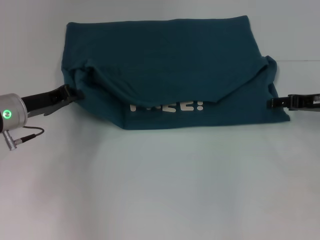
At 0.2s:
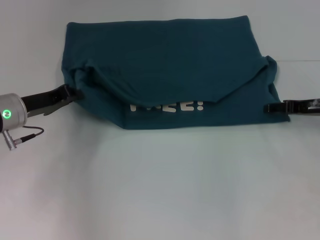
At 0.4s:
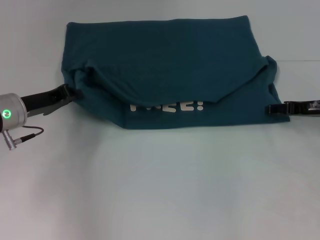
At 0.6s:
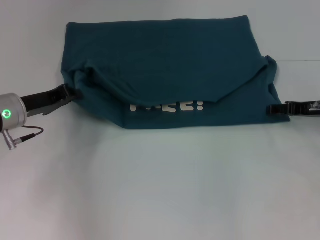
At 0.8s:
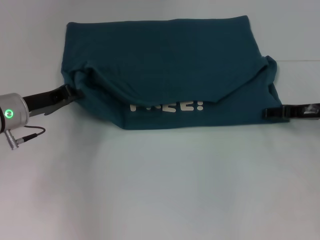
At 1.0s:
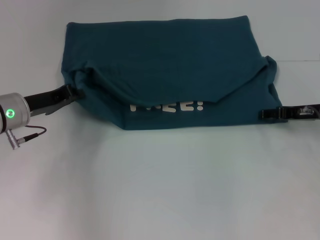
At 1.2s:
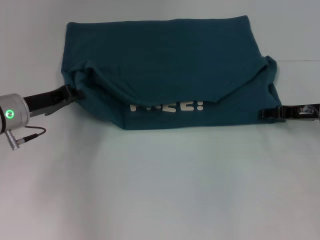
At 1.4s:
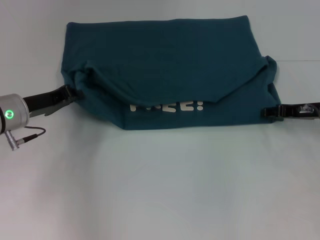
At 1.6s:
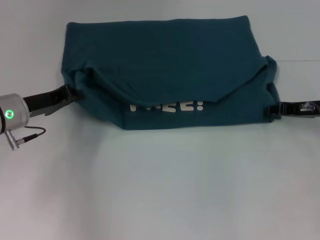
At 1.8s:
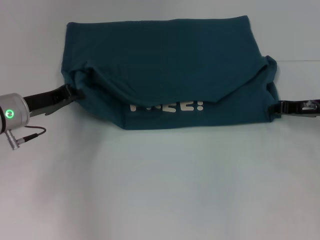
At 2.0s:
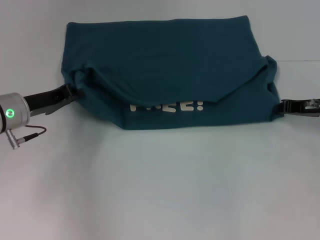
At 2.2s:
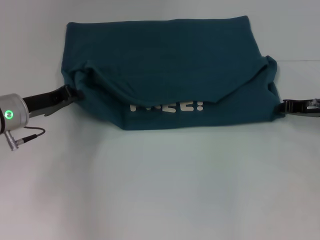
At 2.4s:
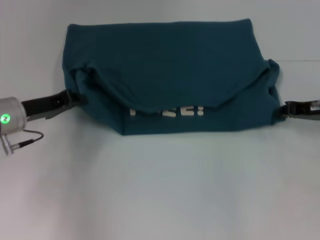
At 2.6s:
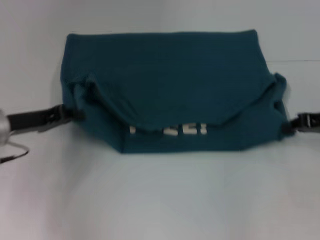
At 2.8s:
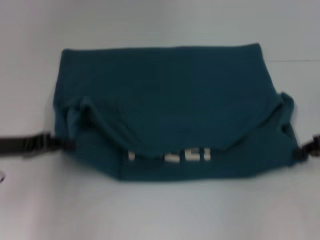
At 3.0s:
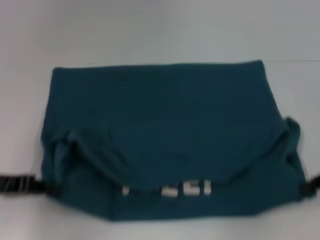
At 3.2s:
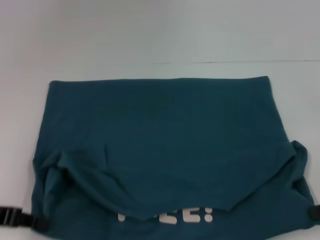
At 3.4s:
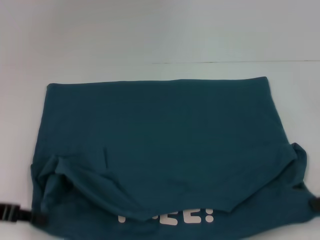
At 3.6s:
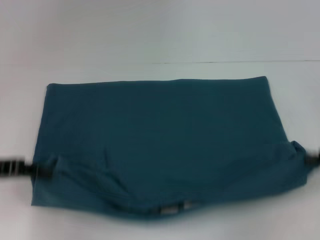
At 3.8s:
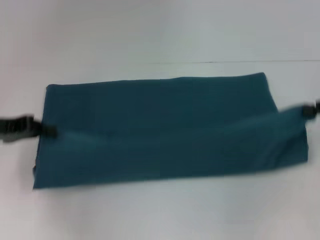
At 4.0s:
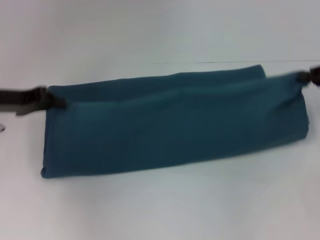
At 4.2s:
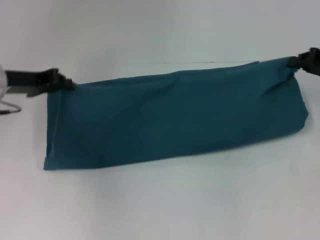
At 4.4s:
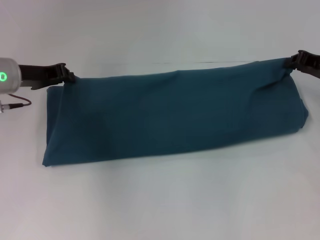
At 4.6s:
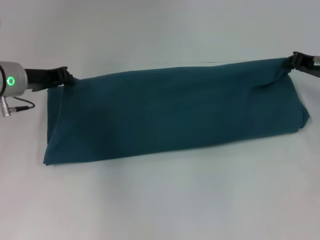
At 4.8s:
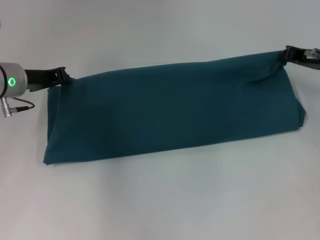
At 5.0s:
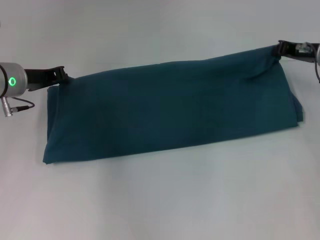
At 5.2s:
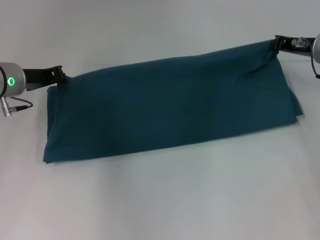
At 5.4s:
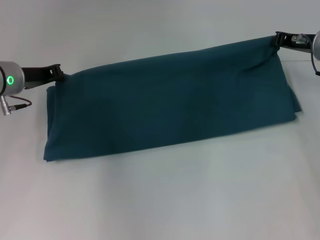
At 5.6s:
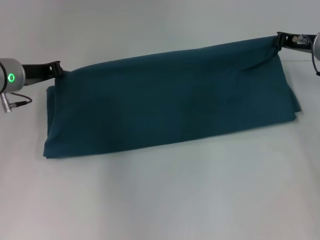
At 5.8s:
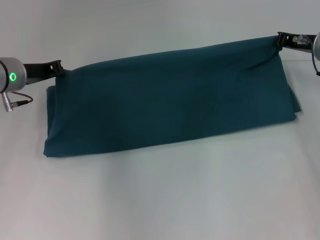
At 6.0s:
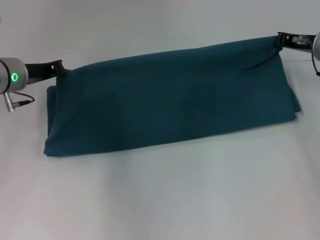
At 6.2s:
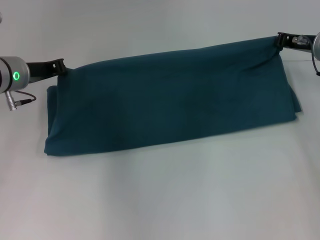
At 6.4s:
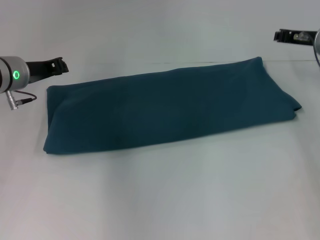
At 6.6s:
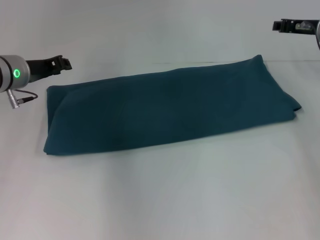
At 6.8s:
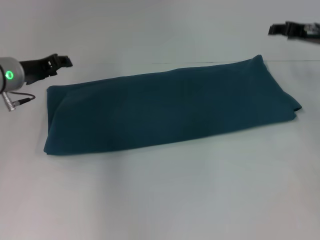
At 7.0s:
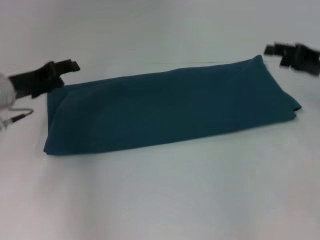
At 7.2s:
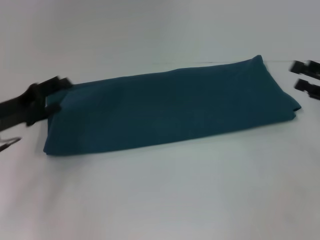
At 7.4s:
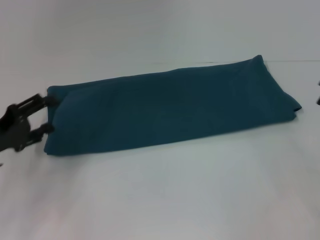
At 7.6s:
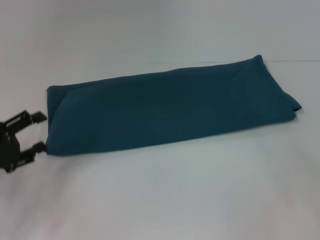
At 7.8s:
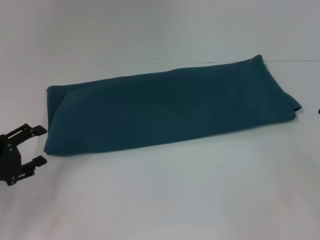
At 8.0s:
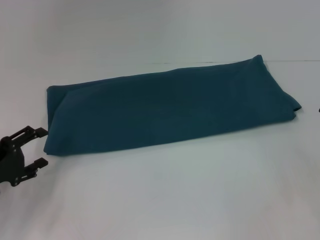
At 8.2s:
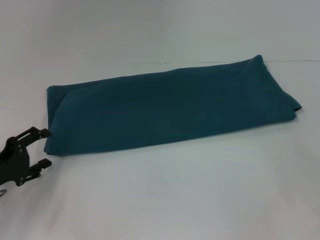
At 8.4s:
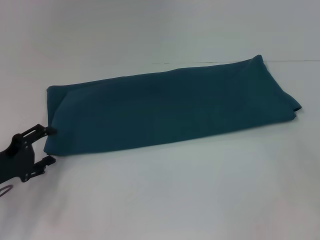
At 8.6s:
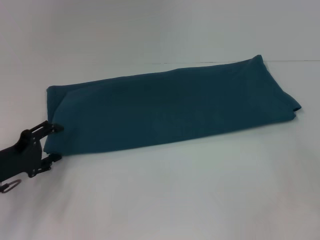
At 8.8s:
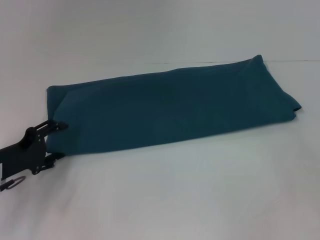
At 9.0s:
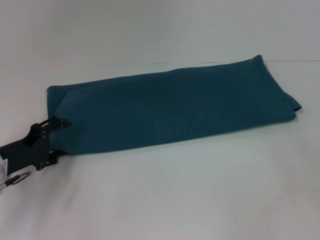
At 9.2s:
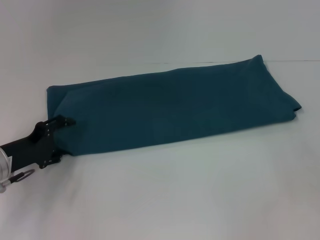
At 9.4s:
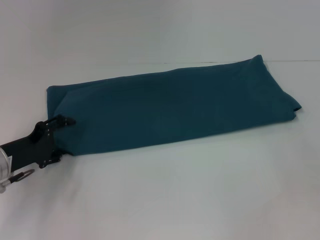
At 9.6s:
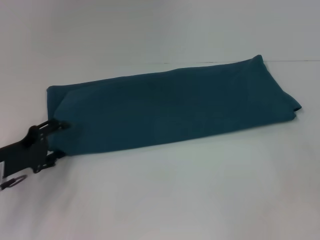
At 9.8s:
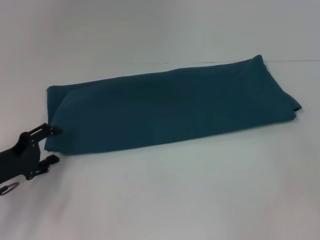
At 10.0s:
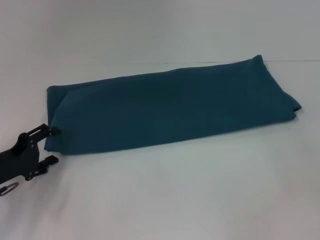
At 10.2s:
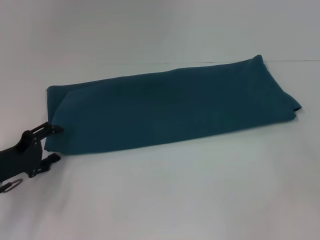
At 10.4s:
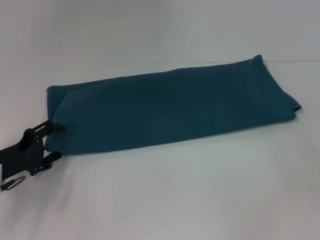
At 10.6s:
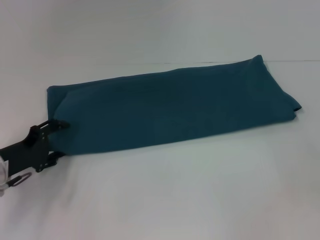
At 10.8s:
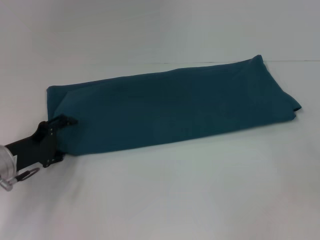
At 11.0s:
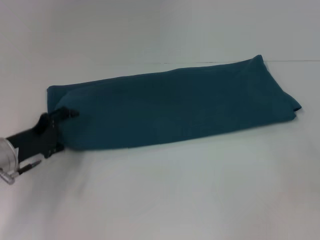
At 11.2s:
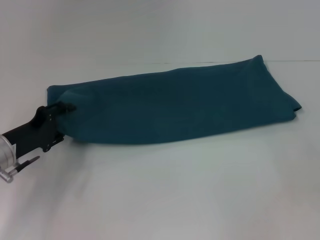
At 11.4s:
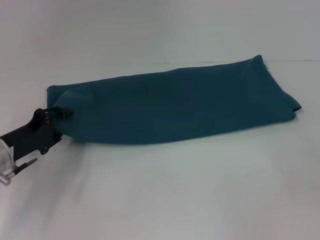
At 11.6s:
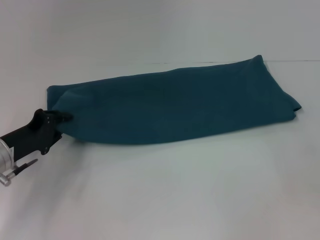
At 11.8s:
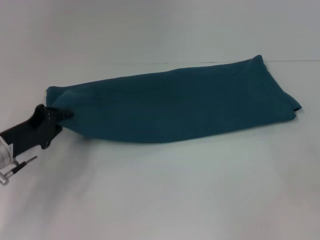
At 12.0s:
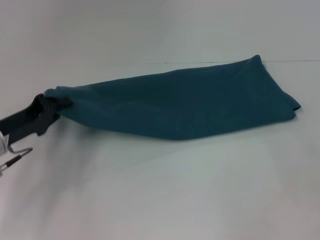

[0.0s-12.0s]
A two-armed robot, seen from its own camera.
Step, 0.0s to 3.2s: Pull the clothes with your left hand.
Step, 0.0s to 3.2s: Pull the clothes with your right hand.
Step, 3.4s to 7.0s: Fold the clothes to the right.
0.0s to 1.6s: The right gripper closes up.
1.6s to 3.0s: The right gripper goes roughly 10 cm backward and to the right, and closes. The left gripper goes some 10 cm backward and to the left.
3.0s to 4.4s: The grippers both shift forward by approximately 15 cm.
4.4s to 6.0s: The right gripper moves some 5 cm.
6.0s to 7.6s: The left gripper moves backward and to the left, about 20 cm, and opens up. Meanwhile the right gripper travels backward and to the right by about 20 cm, and opens up.
7.6s to 9.0s: The left gripper changes place by about 5 cm.
9.0s to 10.4s: The grippers stay close to where they were, moving slightly.
10.4s to 12.0s: The left gripper closes up.

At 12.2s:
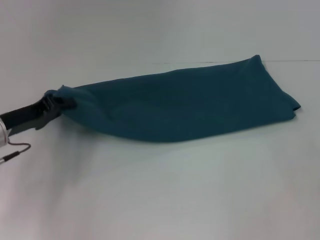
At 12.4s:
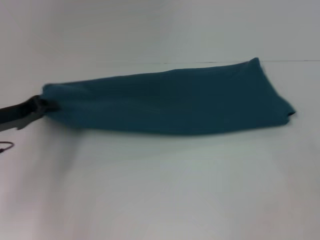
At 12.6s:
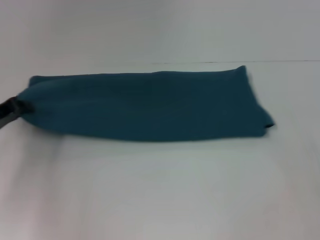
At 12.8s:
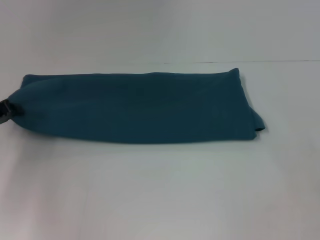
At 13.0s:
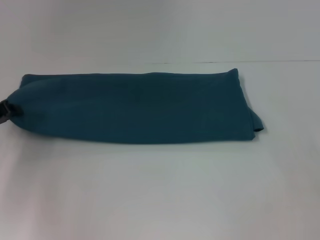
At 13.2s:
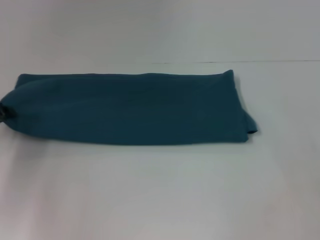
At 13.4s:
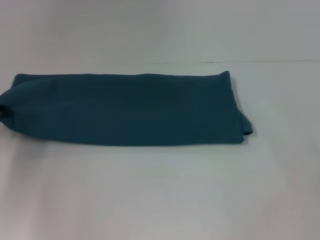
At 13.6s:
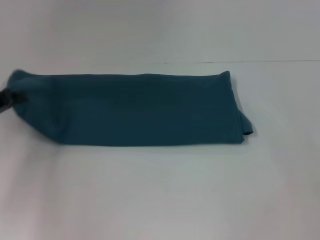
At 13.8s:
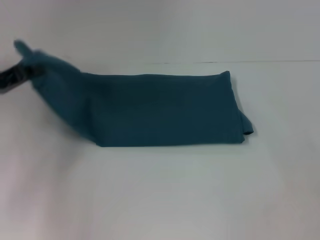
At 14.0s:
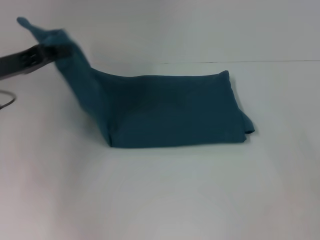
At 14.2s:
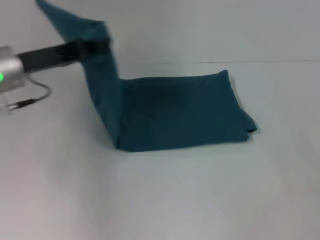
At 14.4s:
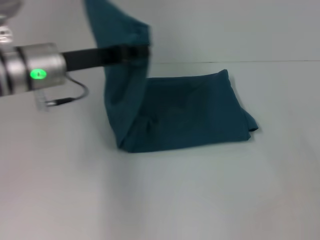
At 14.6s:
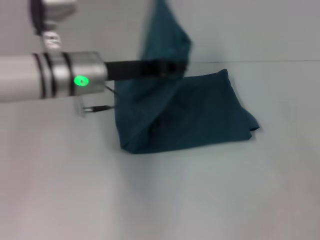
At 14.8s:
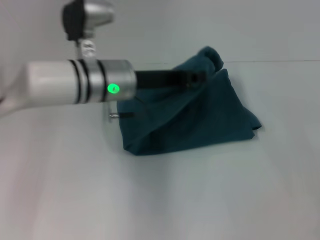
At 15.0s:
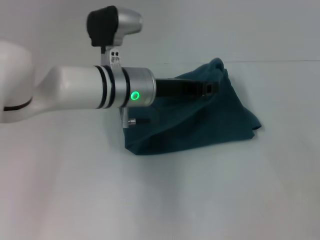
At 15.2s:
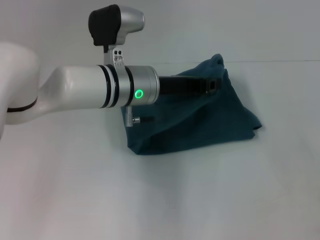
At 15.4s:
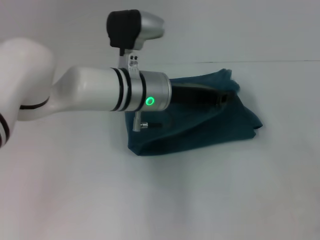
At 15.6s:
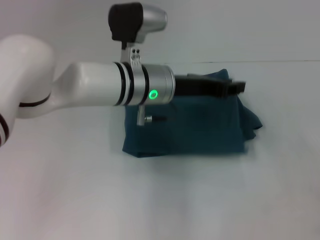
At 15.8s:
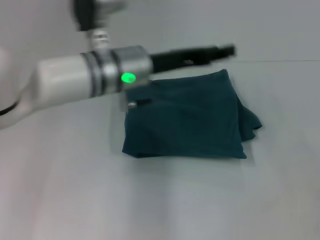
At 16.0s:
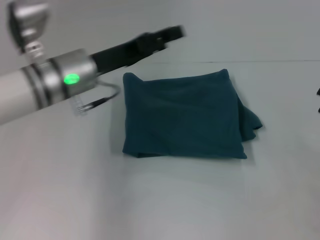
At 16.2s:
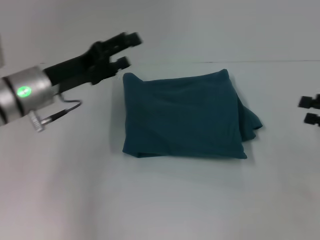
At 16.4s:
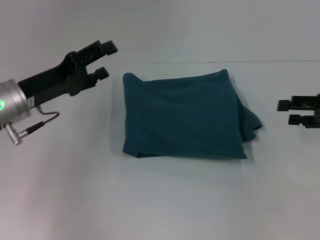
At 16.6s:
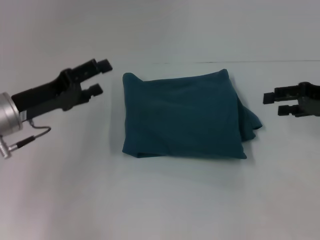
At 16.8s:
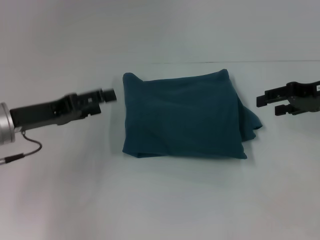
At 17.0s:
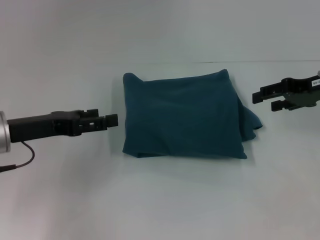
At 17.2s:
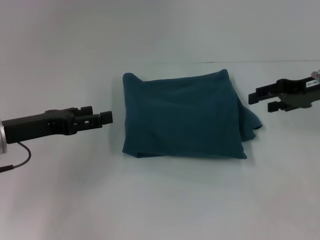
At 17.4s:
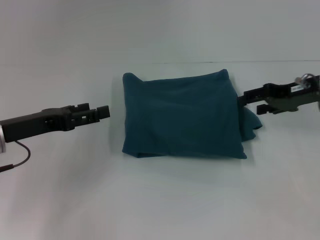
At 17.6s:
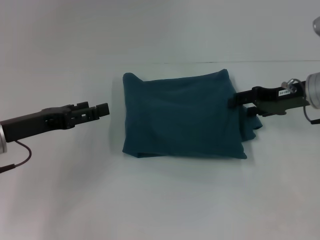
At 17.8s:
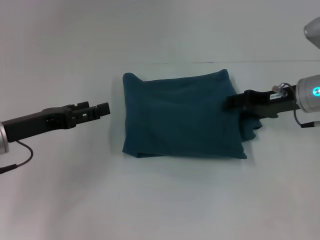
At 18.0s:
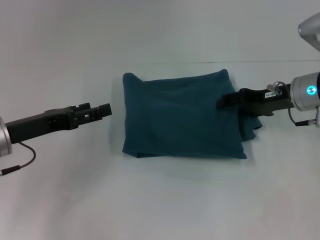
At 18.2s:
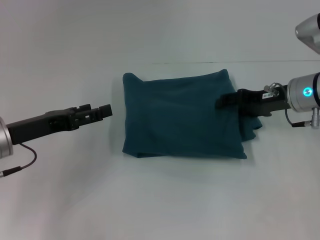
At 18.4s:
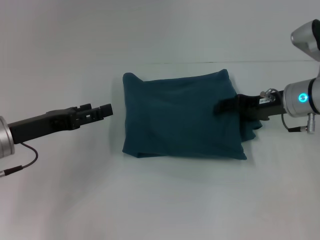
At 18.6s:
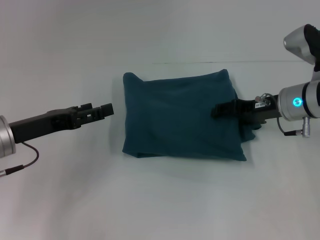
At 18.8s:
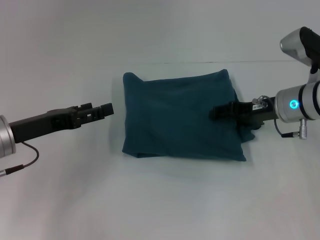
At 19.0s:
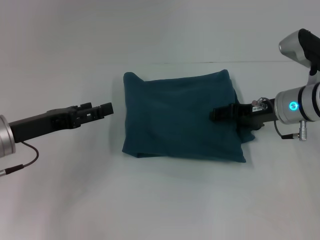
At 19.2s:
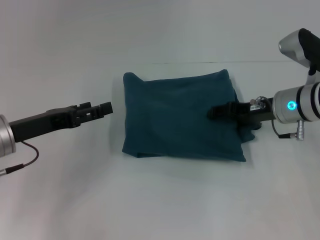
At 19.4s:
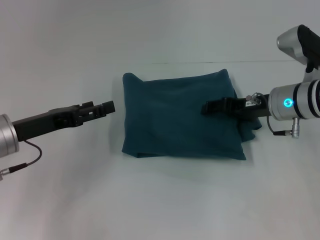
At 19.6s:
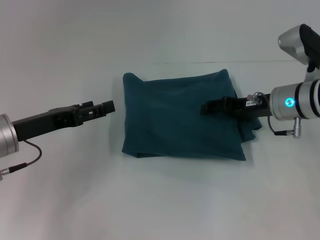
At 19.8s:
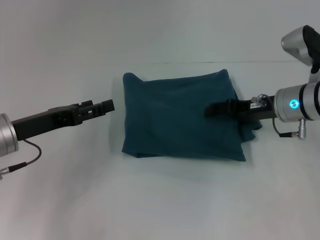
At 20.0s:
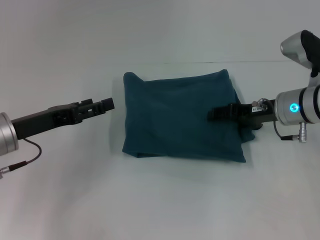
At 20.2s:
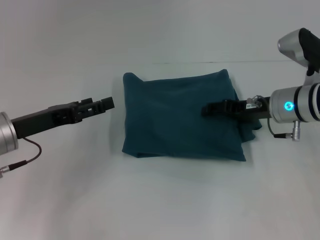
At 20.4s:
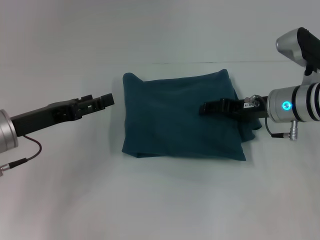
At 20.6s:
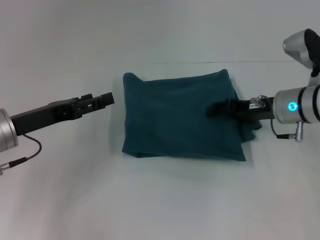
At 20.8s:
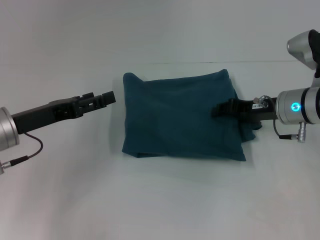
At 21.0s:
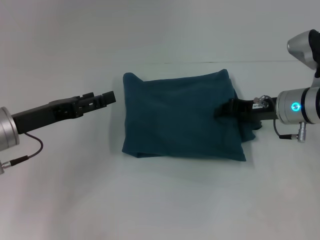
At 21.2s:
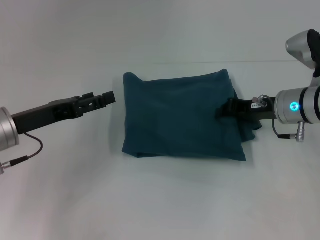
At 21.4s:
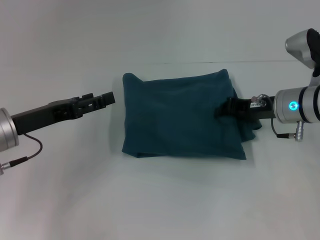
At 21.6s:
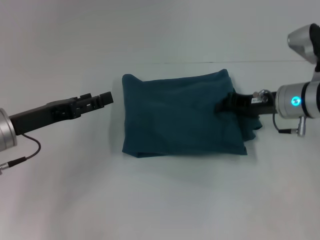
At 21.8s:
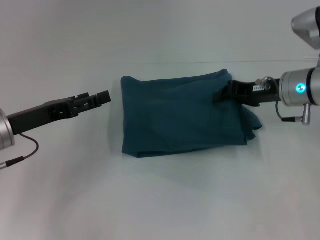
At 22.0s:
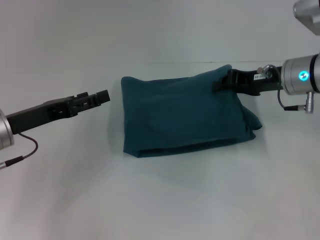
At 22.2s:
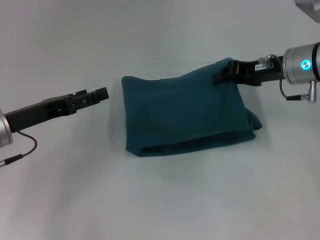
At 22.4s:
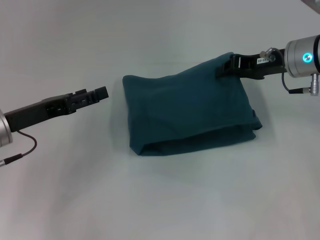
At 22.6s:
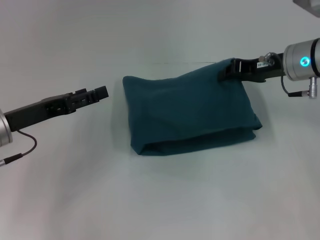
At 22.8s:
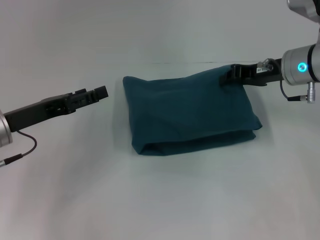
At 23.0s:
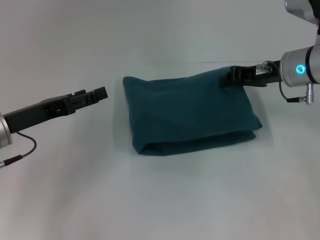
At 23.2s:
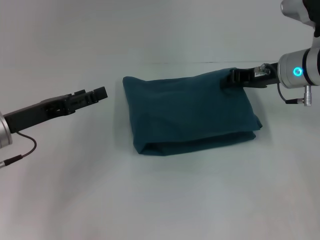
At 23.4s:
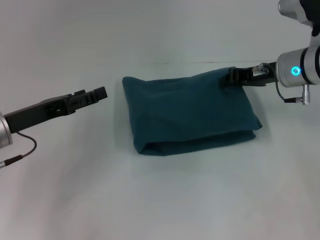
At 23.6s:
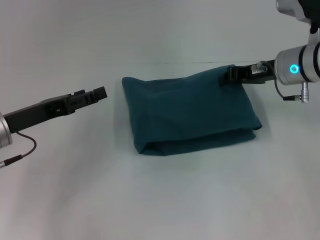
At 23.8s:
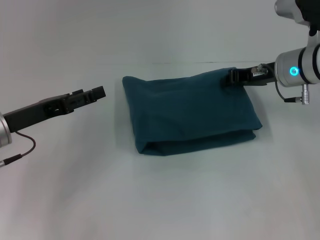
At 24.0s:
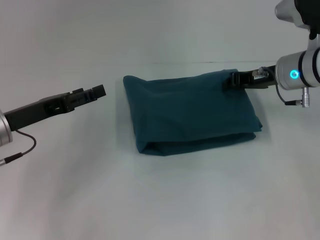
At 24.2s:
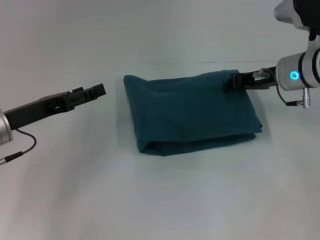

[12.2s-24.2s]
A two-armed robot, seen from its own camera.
Step, 12.2s to 16.2s: Fold the clothes to the left.
12.2s to 13.8s: The left gripper goes roughly 5 cm upward.
13.8s to 15.2s: The left gripper travels to the right by roughly 25 cm.
15.2s to 16.6s: The right gripper travels forward and to the left by about 10 cm; the left gripper goes about 20 cm to the left, and opens its fingers.
16.6s to 18.2s: The right gripper is displaced to the left by some 10 cm.
18.2s to 19.8s: There are only small adjustments of the grippers.
19.8s to 21.2s: The right gripper closes.
21.2s to 22.6s: The right gripper goes about 5 cm upward.
22.6s to 24.2s: The grippers stay close to where they were, moving slightly.
